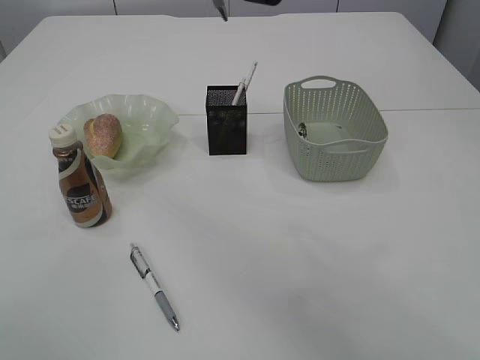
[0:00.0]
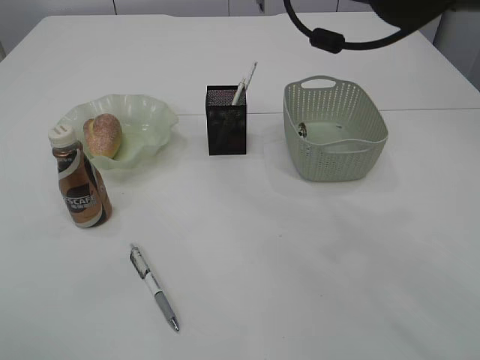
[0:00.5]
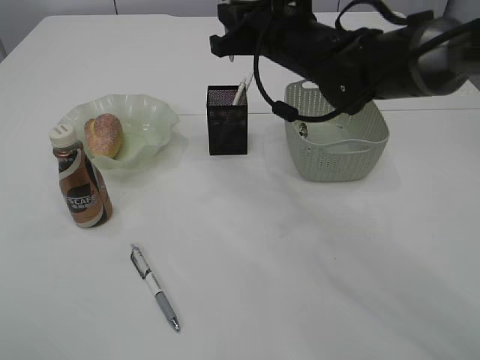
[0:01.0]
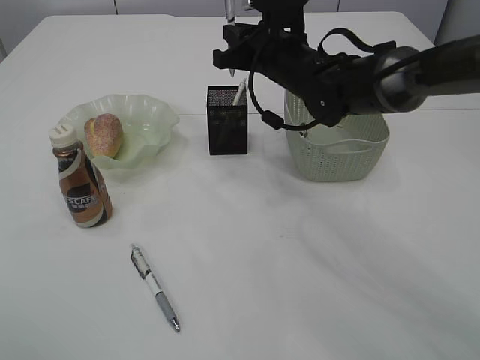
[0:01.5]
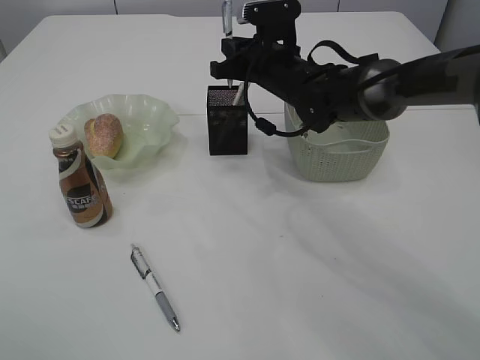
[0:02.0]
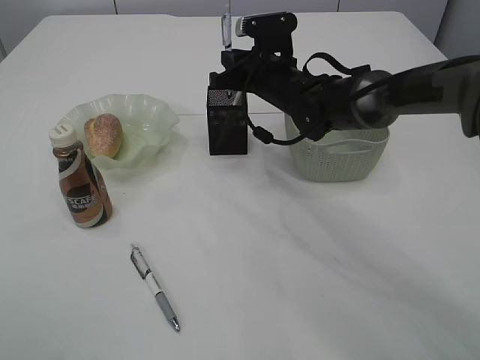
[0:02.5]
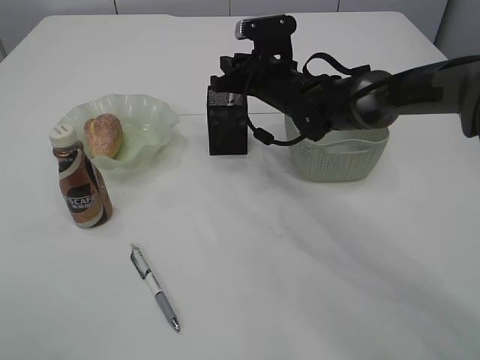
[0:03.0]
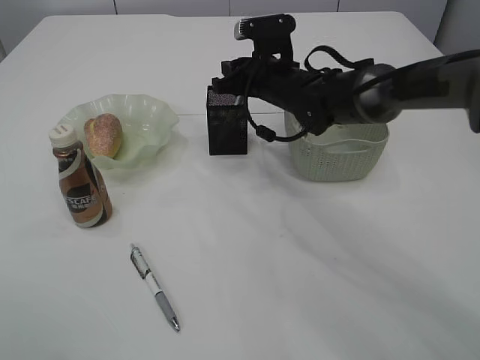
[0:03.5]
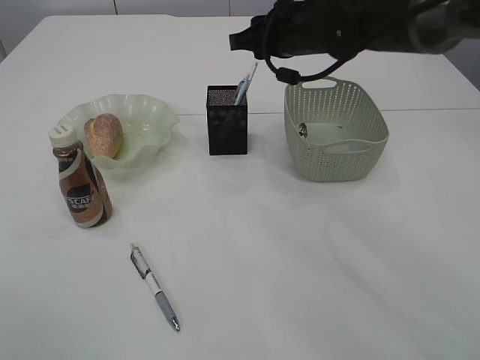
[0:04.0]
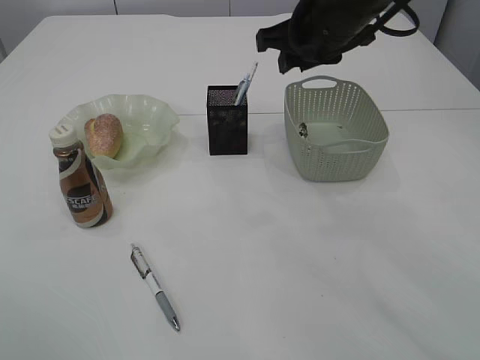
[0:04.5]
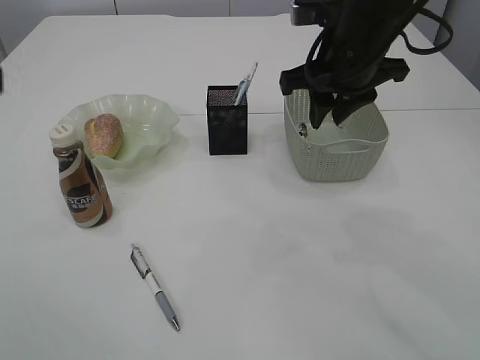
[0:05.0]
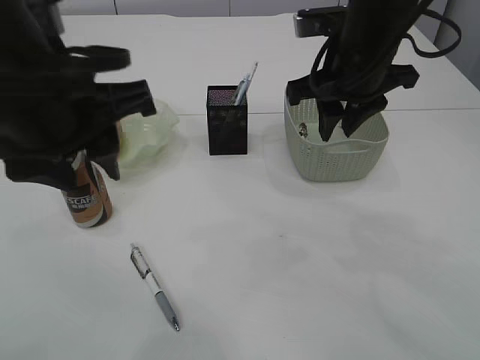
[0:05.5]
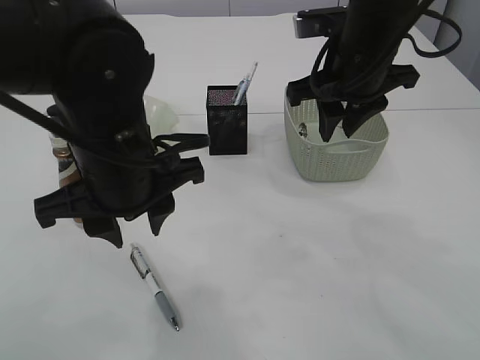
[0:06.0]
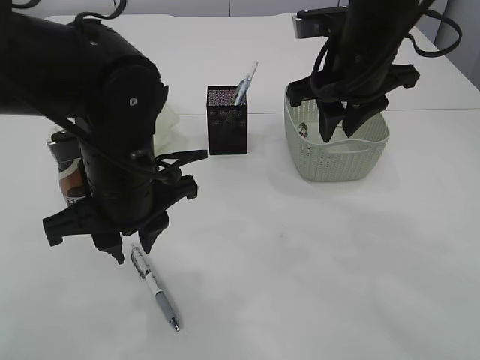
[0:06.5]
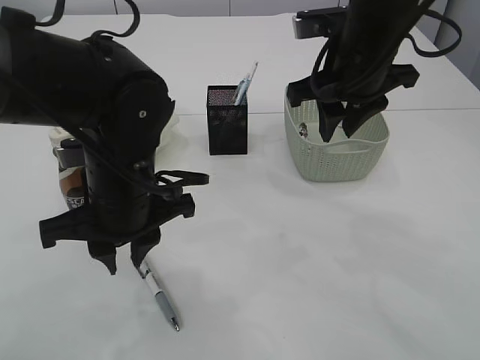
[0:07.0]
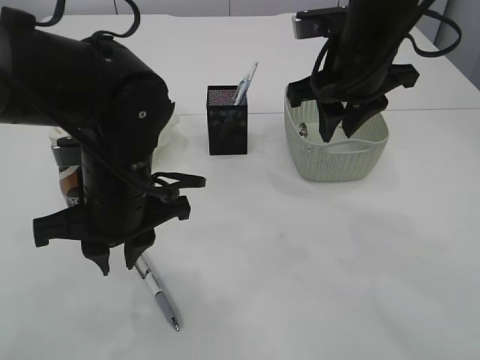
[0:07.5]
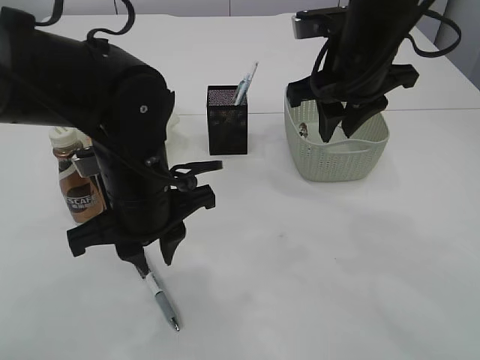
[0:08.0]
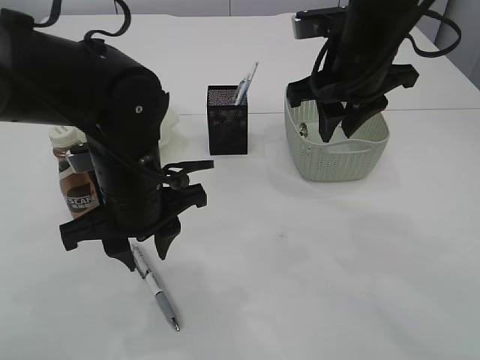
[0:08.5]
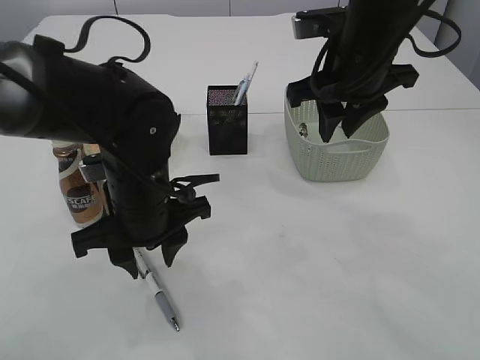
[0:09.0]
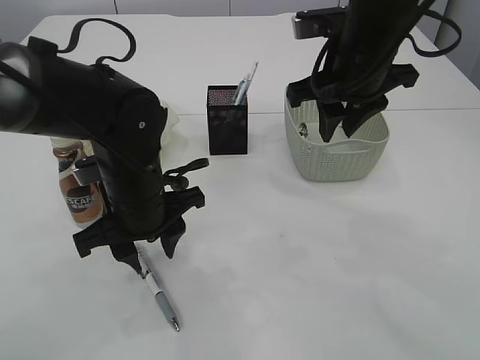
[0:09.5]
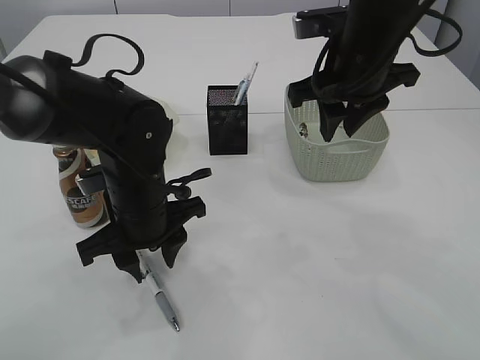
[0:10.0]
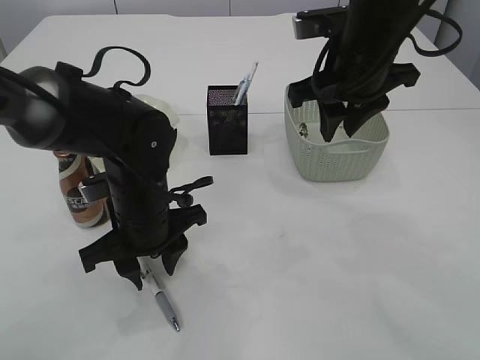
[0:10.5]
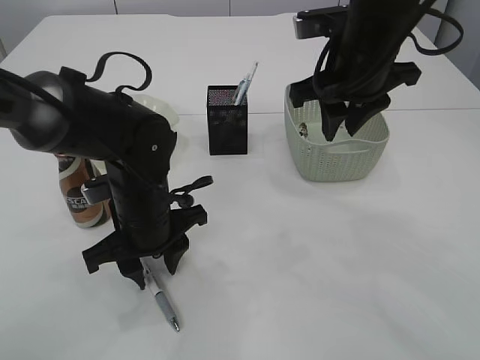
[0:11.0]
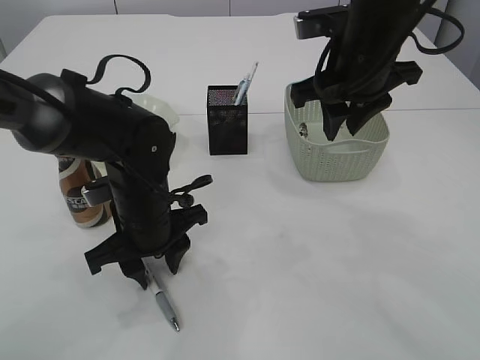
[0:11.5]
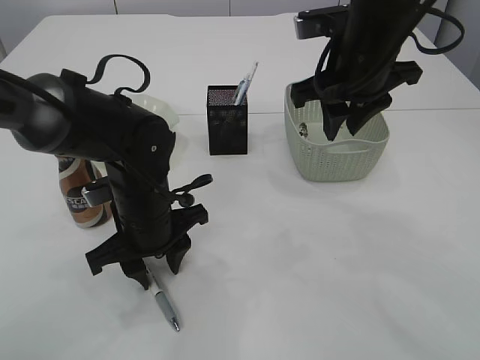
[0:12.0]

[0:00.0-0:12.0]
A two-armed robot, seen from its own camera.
Step, 0:00.0 to 0:03.5: Place the pen into the pen holder.
0:00.0 to 0:02.0: The right gripper heads downward and forward, covering about 25 cm.
0:02.0 to 0:04.0: The right gripper shifts some 5 cm upward, and opens its fingers.
0:04.0 to 0:06.0: The right gripper is displaced backward by approximately 10 cm. Meanwhile the left gripper is displaced downward and to the right by roughly 25 cm.
0:06.0 to 0:08.0: The left gripper moves downward, about 5 cm.
0:08.0 to 0:10.0: The left gripper changes place by approximately 5 cm.
0:10.0 to 0:12.0: There are only small adjustments of the grippers.

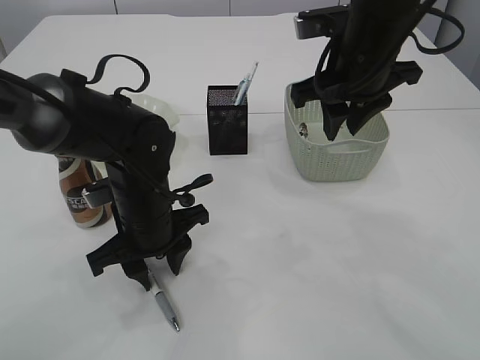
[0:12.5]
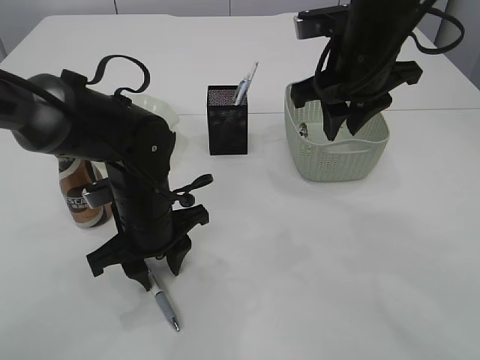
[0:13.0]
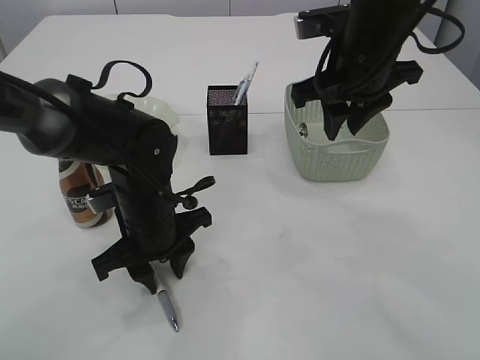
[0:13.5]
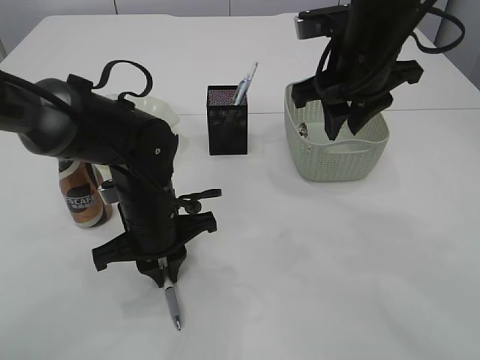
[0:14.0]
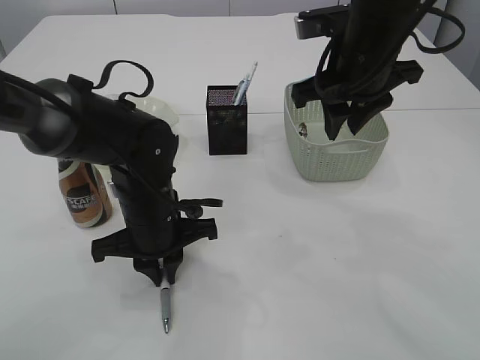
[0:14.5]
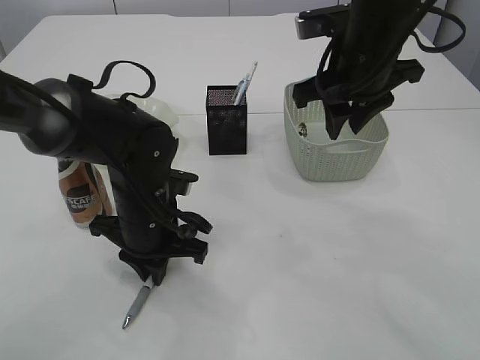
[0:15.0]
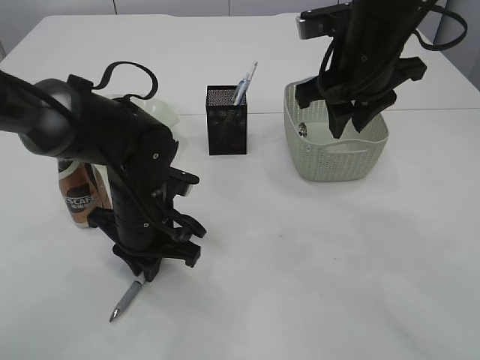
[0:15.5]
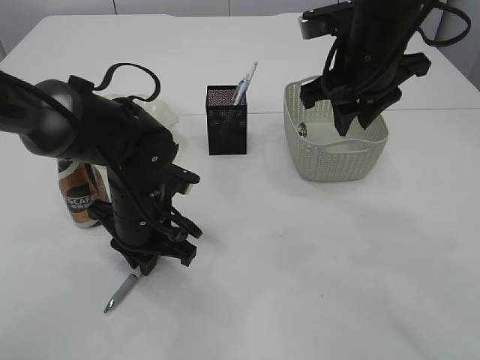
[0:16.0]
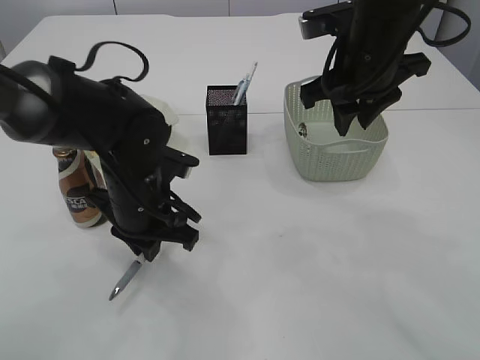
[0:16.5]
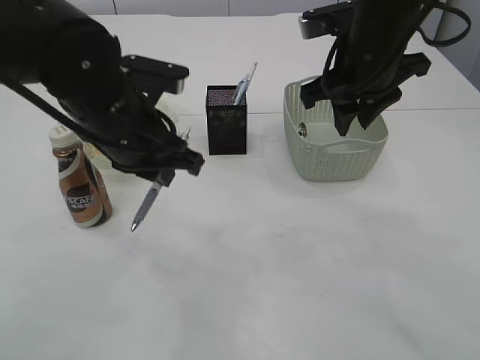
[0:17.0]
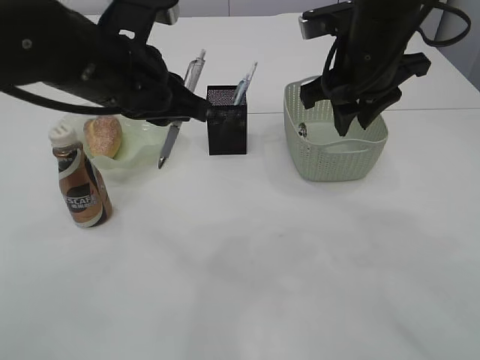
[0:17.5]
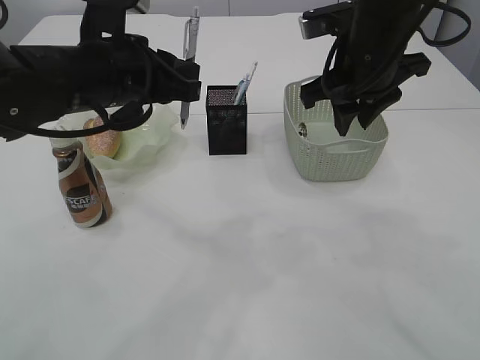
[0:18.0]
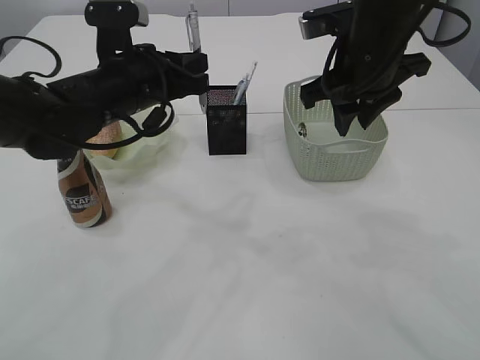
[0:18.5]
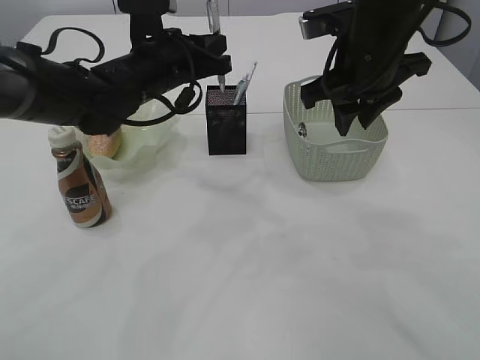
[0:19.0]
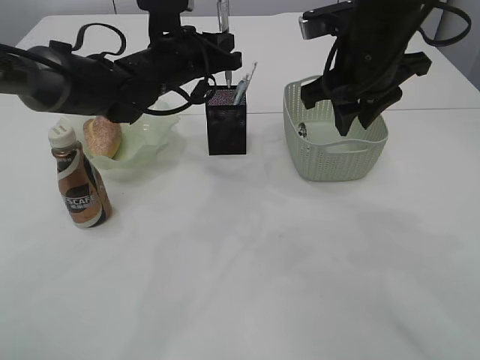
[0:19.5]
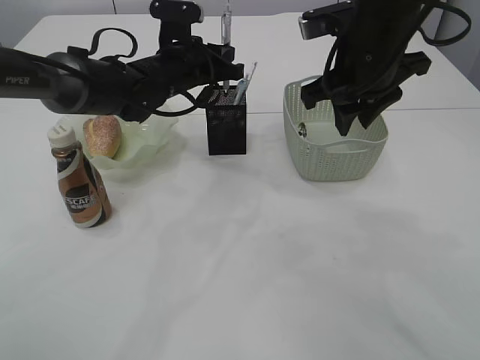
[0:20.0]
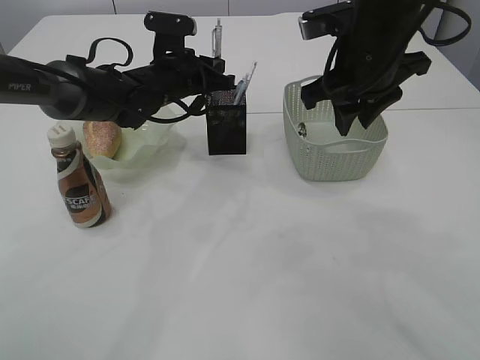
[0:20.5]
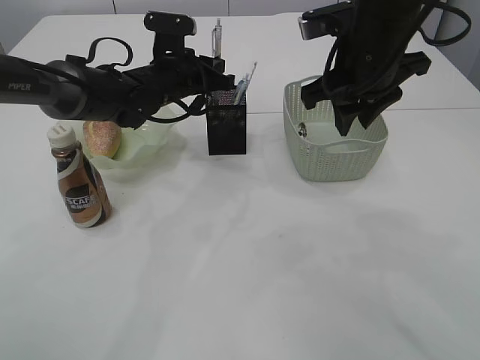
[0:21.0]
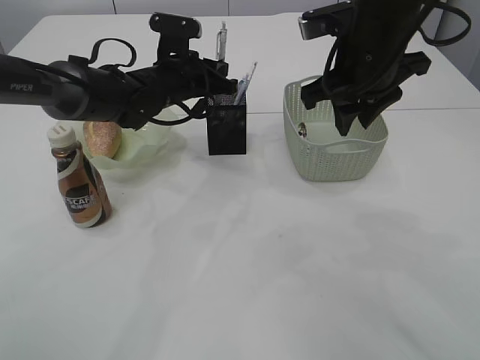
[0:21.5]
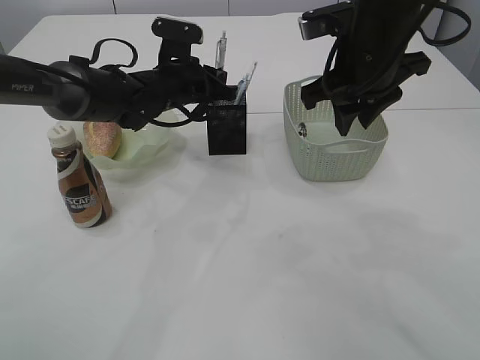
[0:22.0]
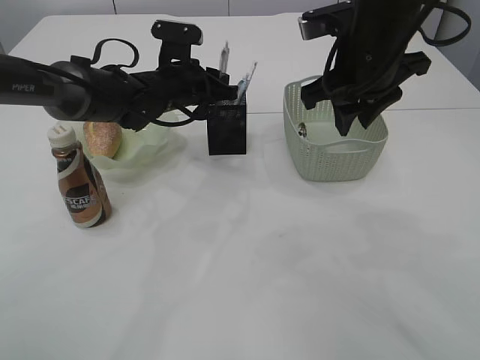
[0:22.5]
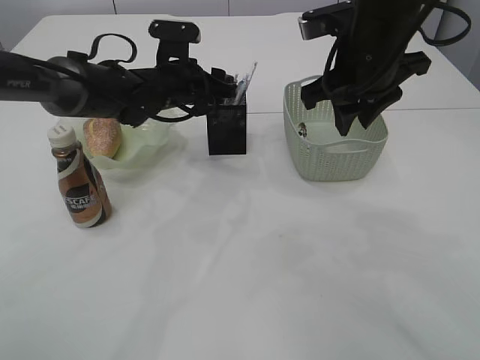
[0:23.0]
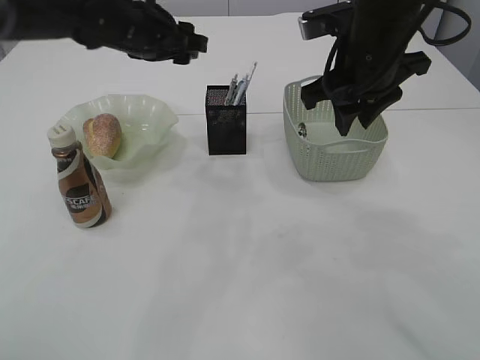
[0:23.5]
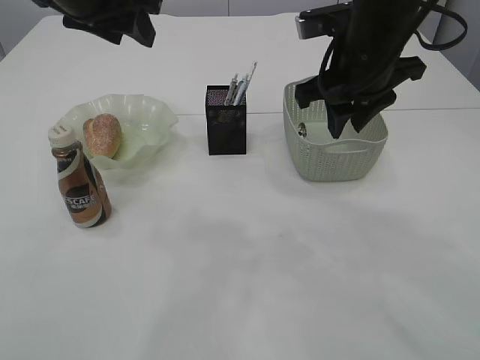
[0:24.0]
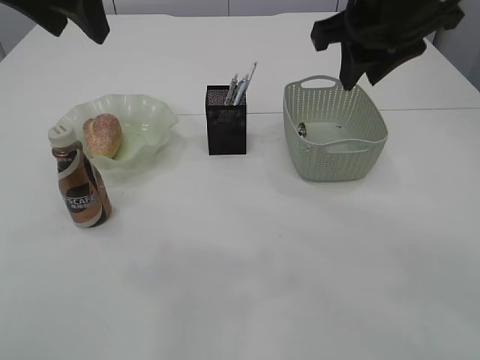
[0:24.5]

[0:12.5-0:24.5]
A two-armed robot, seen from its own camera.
Step, 0:12.5 to 0:16.5: Pick up the pen with left arm.
Step, 0:17.0 to 0:23.5: Place the pen into the pen holder.
0:12.5 to 0:14.5: The left gripper closes its fingers.
0:16.5 to 0:18.5: The left gripper is displaced upward and forward by roughly 10 cm.
0:18.5 to 0:20.5: The left gripper goes about 10 cm forward.
0:20.5 to 0:22.5: There are only small adjustments of the grippers.
0:22.5 to 0:24.5: The right gripper travels upward by about 5 cm. Meanwhile the left gripper moves upward and backward, about 25 cm, and opens.

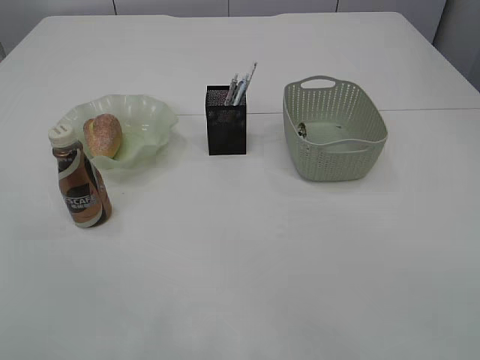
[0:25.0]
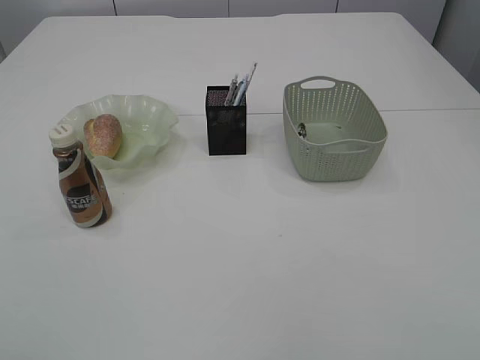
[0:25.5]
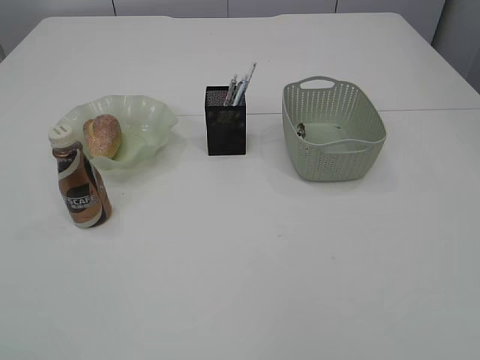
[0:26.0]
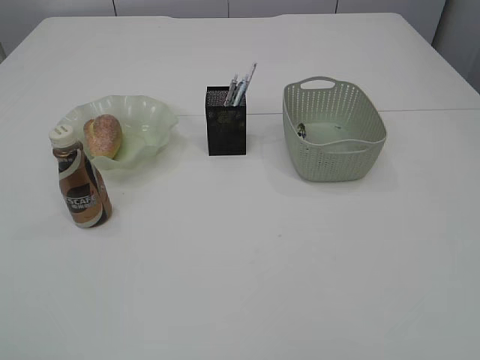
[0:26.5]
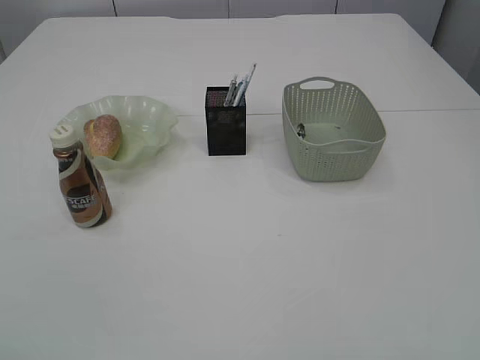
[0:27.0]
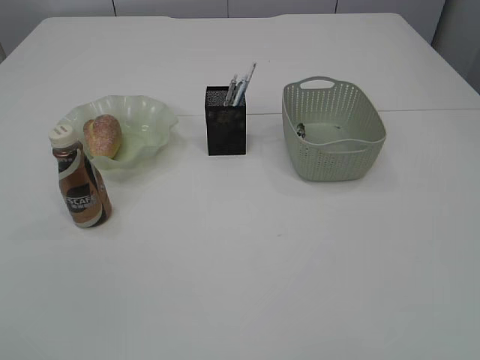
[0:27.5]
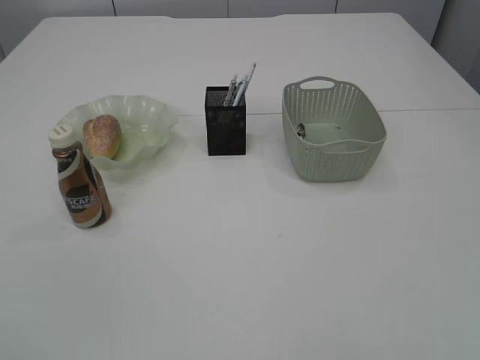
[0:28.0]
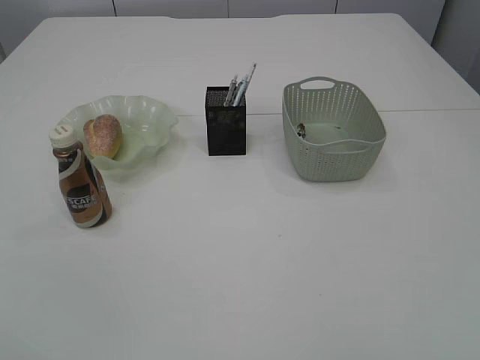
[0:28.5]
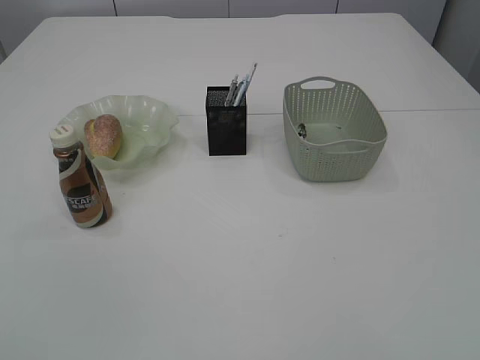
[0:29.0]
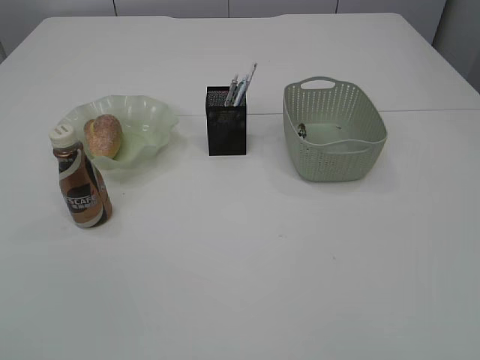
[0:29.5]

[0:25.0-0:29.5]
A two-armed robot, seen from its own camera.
0:25.0 to 0:27.0: The right gripper travels backward and downward by some 30 cm.
